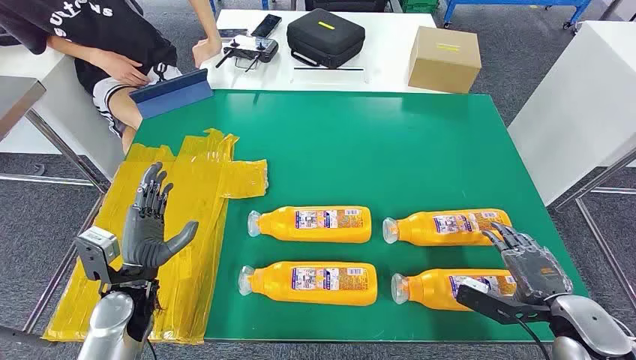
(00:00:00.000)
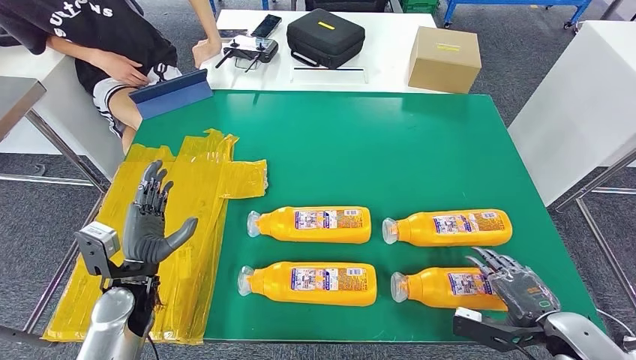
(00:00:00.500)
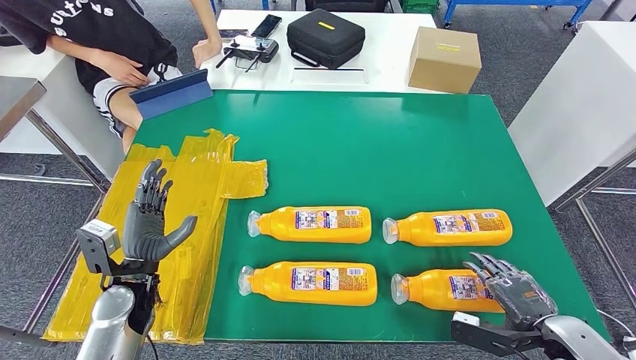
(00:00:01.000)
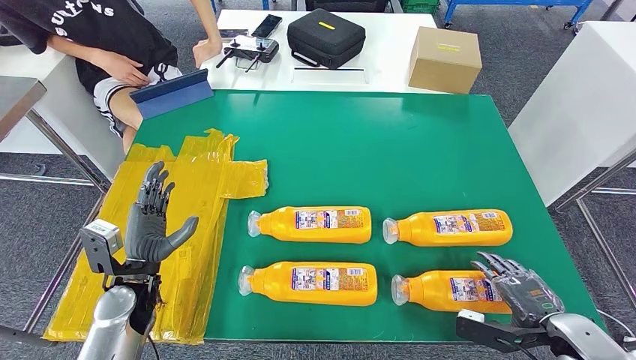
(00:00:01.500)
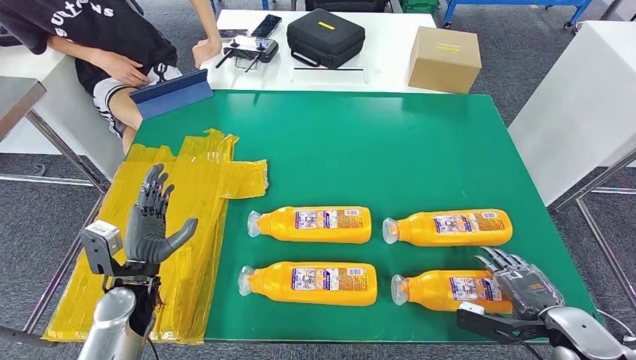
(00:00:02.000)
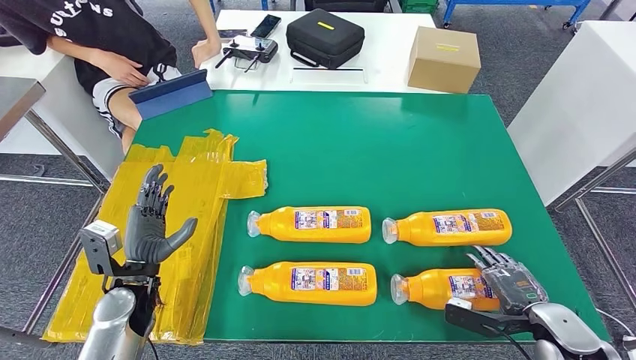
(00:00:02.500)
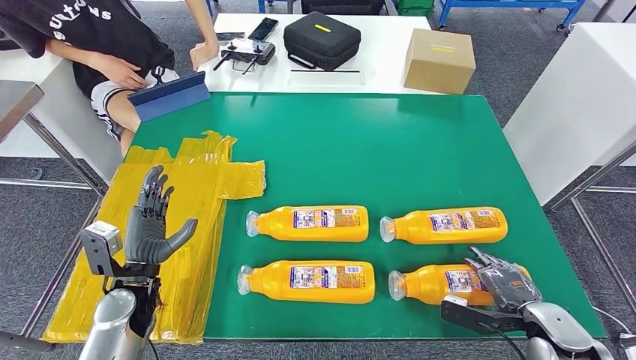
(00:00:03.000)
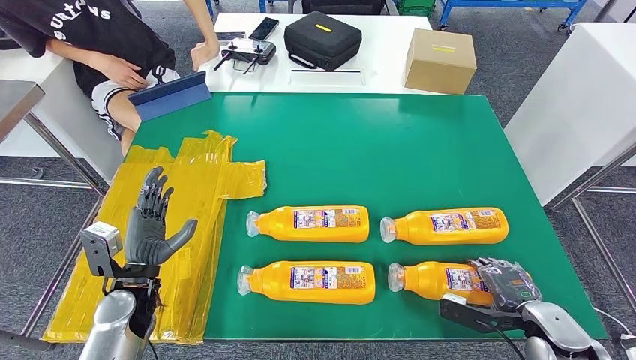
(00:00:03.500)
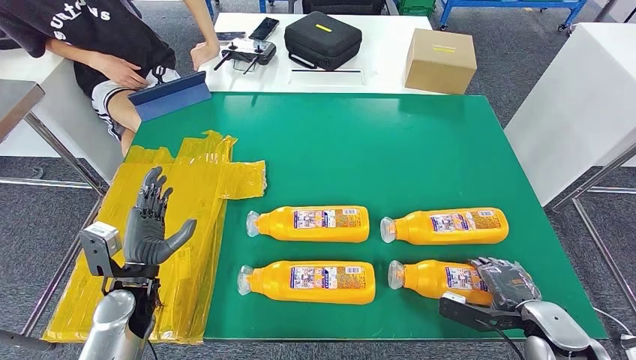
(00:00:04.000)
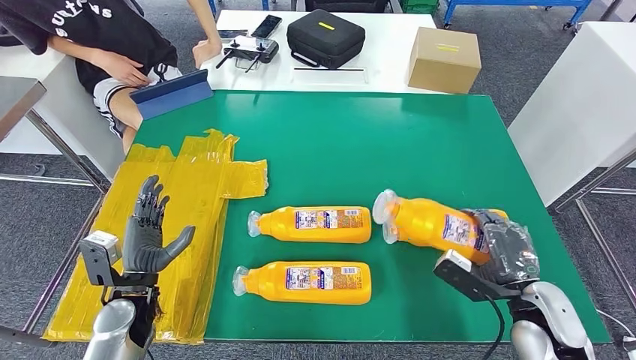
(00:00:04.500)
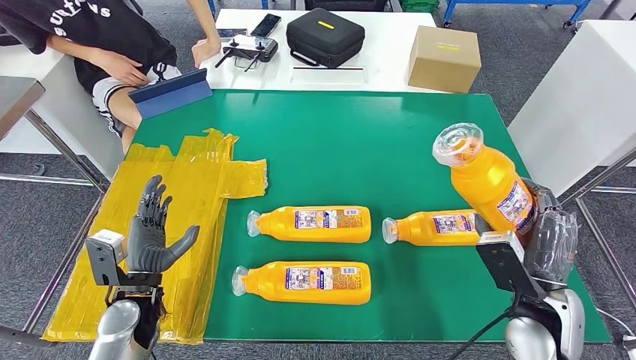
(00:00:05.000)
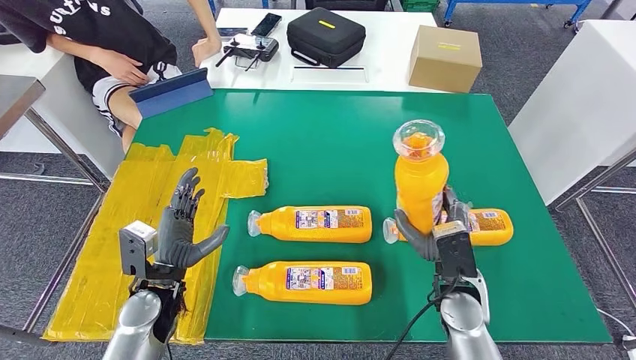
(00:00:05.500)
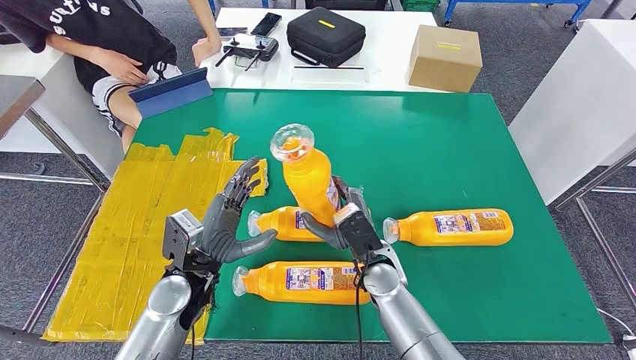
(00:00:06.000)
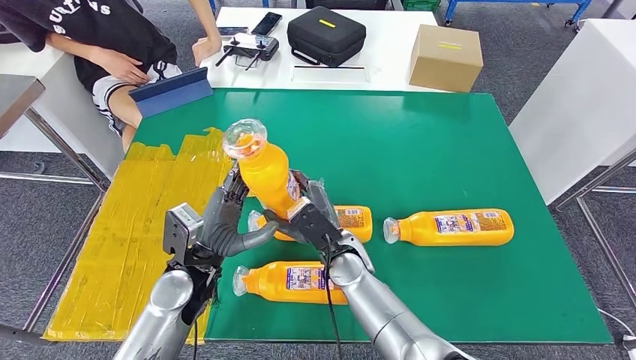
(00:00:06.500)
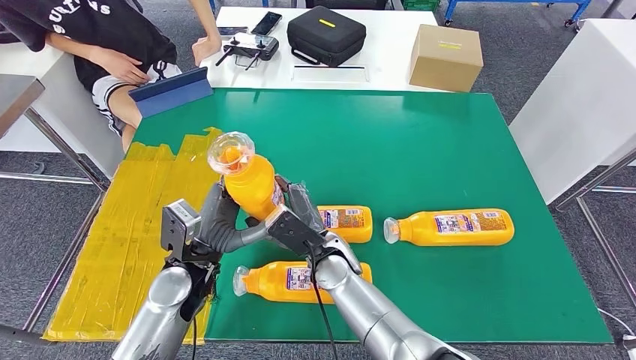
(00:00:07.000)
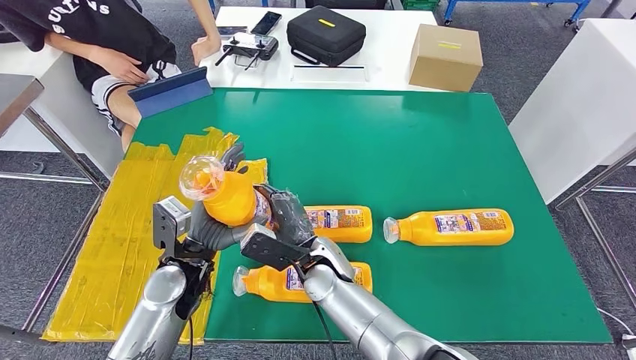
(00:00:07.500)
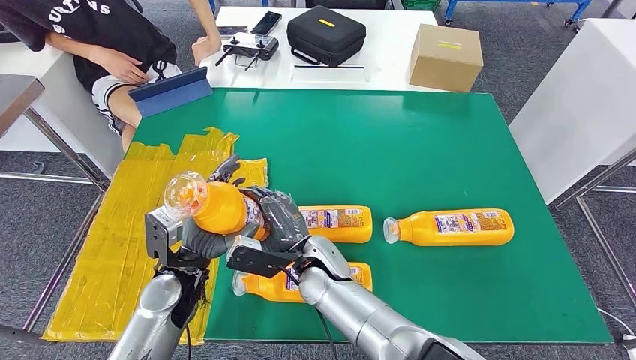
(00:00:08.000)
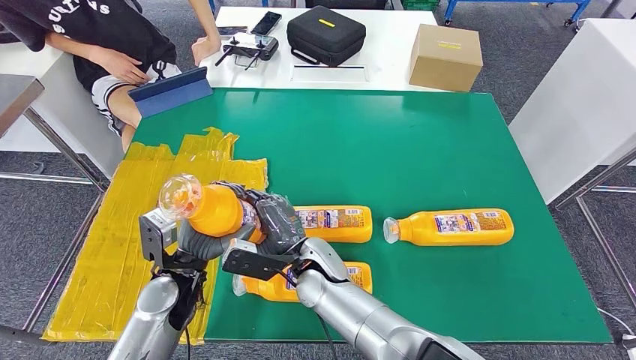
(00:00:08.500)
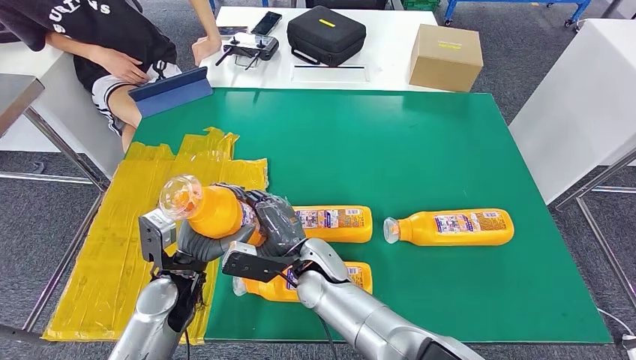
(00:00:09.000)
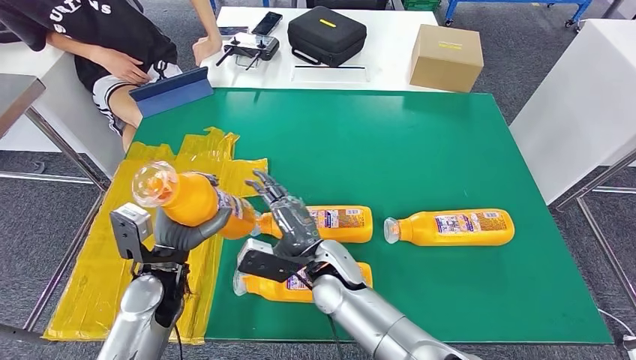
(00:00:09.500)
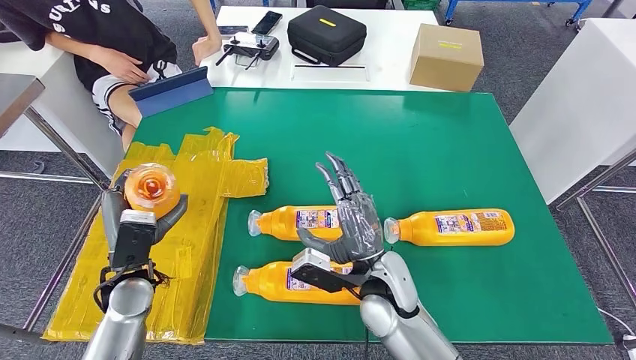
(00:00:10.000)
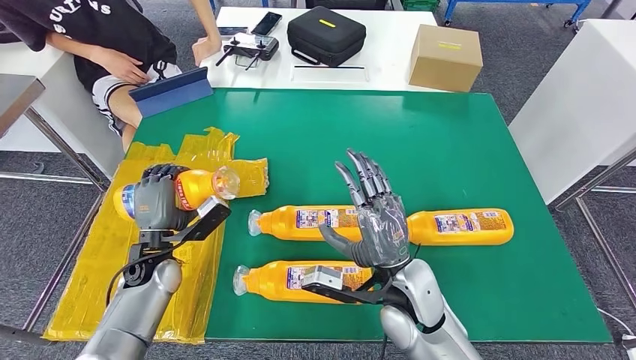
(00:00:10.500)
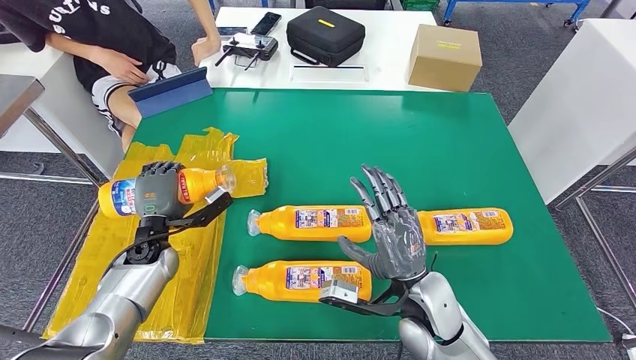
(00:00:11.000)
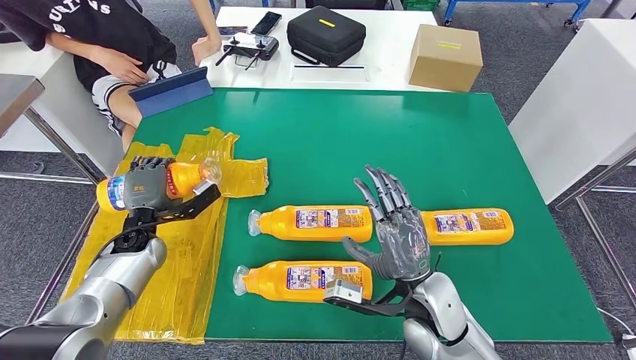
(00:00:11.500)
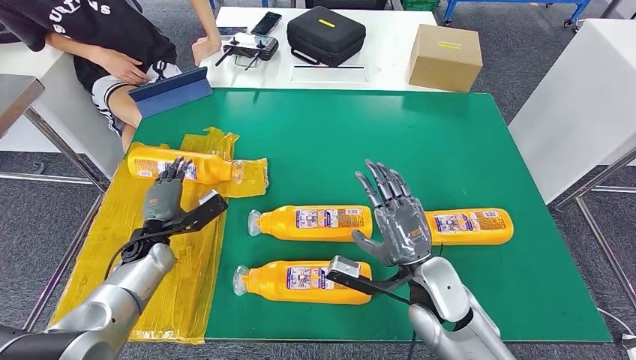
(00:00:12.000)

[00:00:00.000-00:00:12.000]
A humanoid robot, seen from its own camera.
Step, 00:00:00.000 to 00:00:06.000: Take the fast-moving consumer goods bottle from the table.
Step, 00:00:06.500 to 00:00:11.500: Flip the fast-moving consumer goods bottle to the front side.
00:00:02.000 to 00:00:04.000: The hands stay close to where they were, moving slightly.
00:00:06.000 to 00:00:08.000: The right hand moves to the left, about 10 cm.
00:00:08.000 to 00:00:10.000: The right hand heads to the right, covering about 5 cm. The left hand is displaced to the left by roughly 5 cm.
00:00:10.000 to 00:00:12.000: The left hand goes roughly 10 cm forward and downward. Meanwhile the right hand heads to the right, covering about 15 cm.

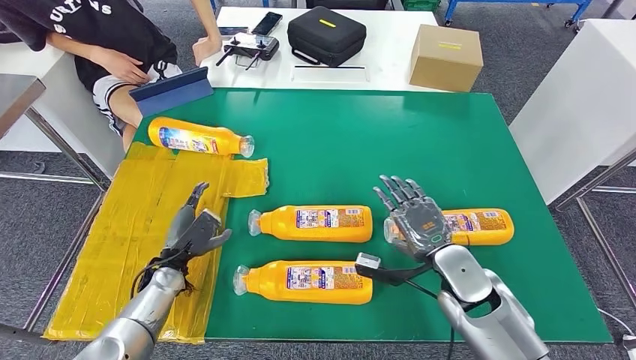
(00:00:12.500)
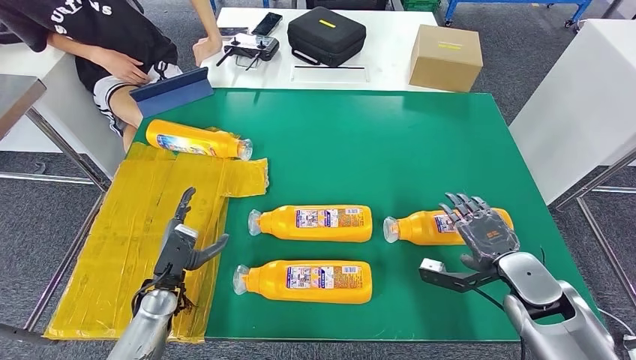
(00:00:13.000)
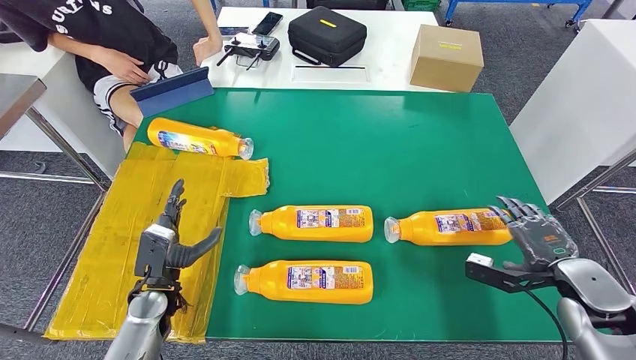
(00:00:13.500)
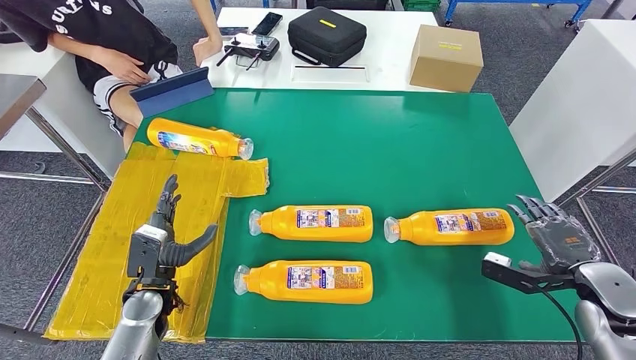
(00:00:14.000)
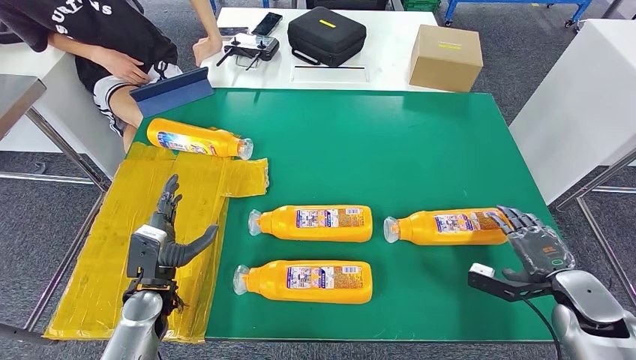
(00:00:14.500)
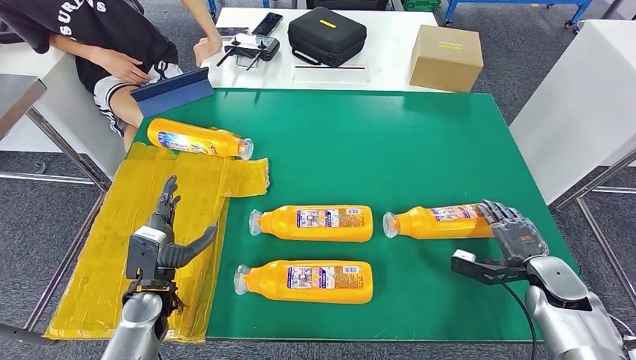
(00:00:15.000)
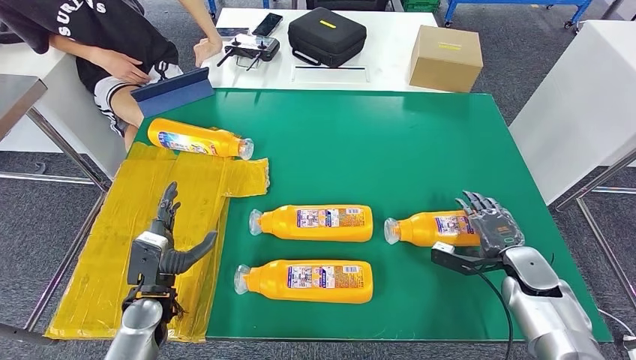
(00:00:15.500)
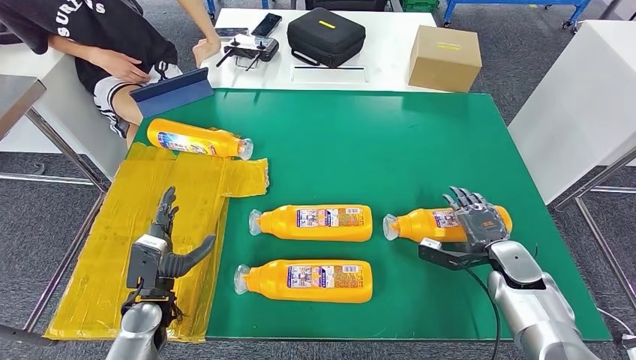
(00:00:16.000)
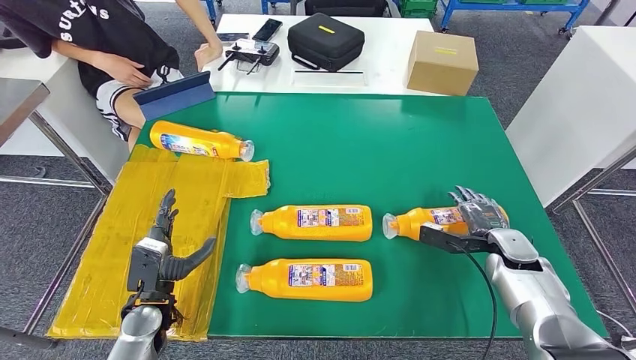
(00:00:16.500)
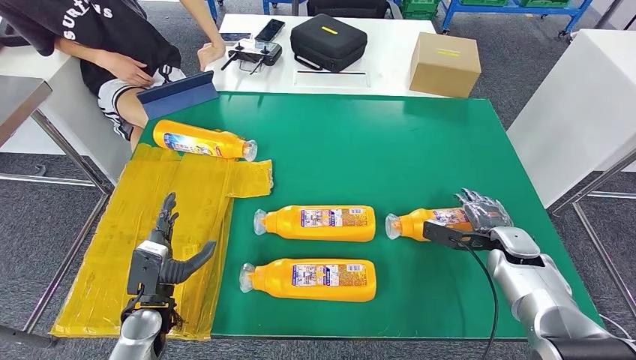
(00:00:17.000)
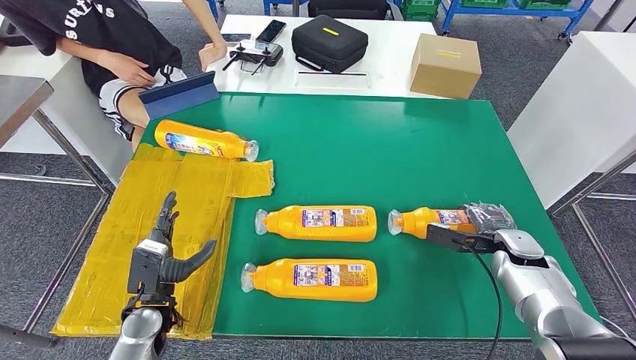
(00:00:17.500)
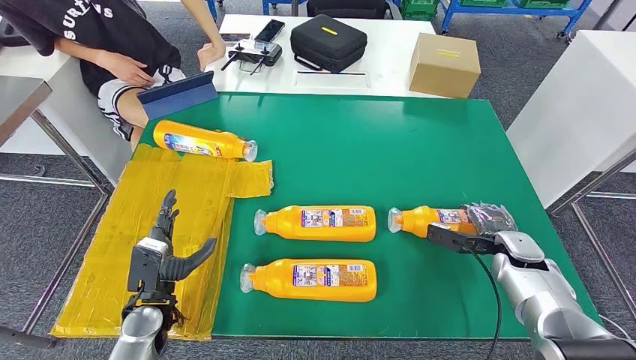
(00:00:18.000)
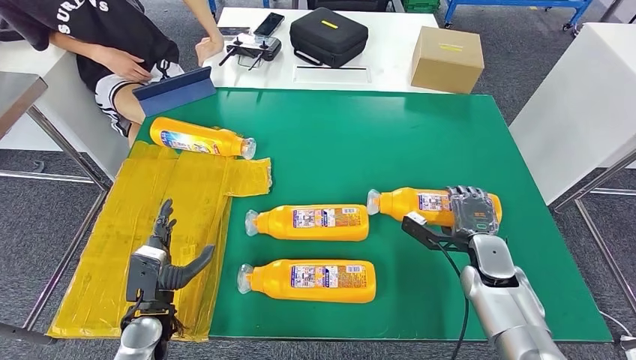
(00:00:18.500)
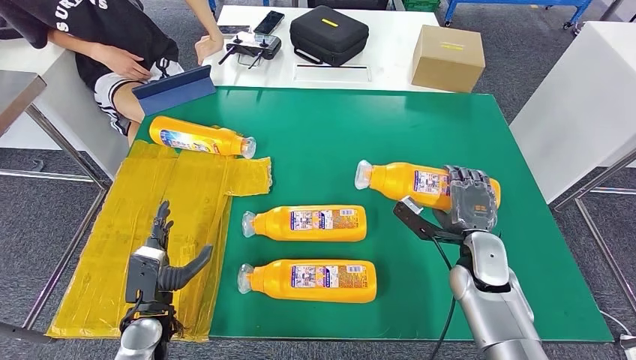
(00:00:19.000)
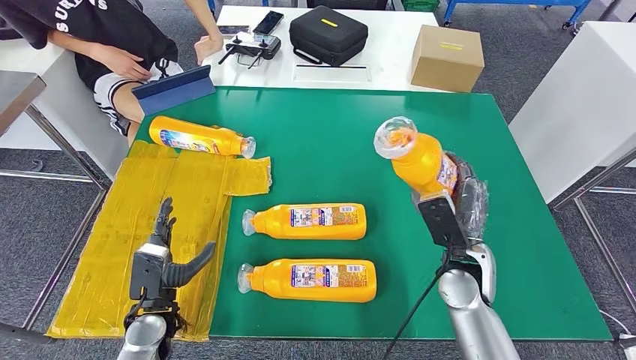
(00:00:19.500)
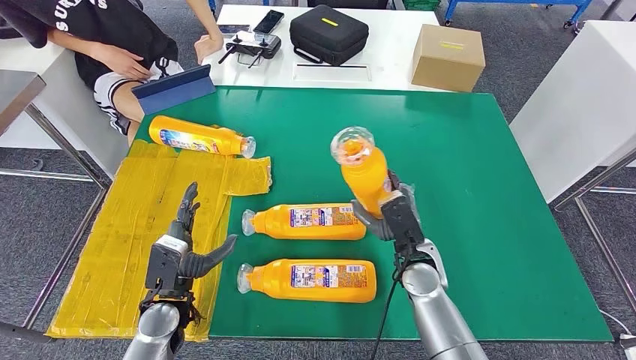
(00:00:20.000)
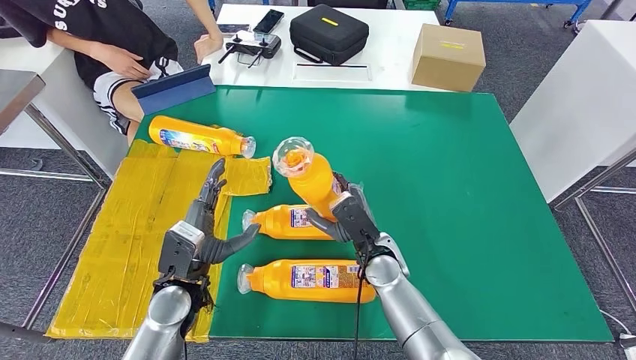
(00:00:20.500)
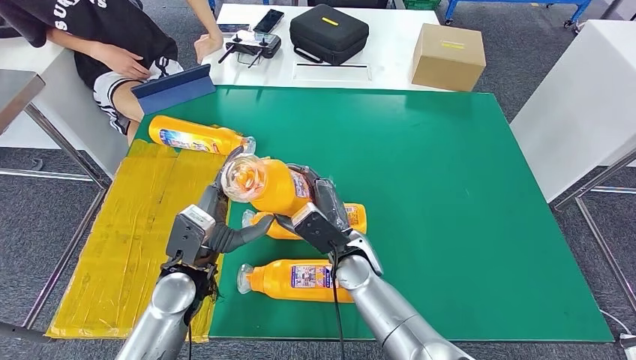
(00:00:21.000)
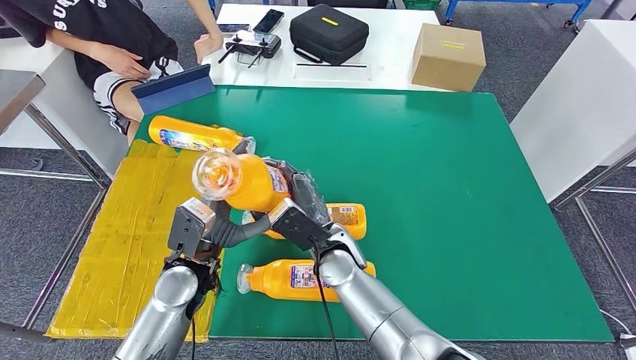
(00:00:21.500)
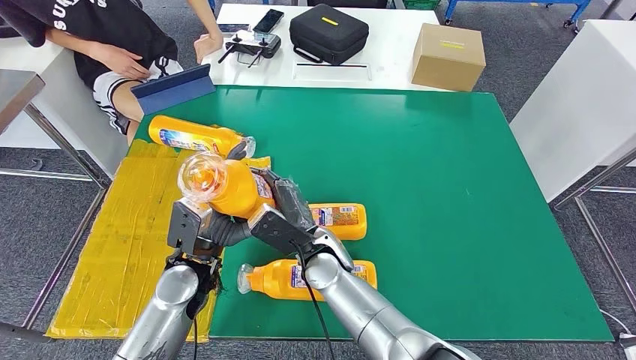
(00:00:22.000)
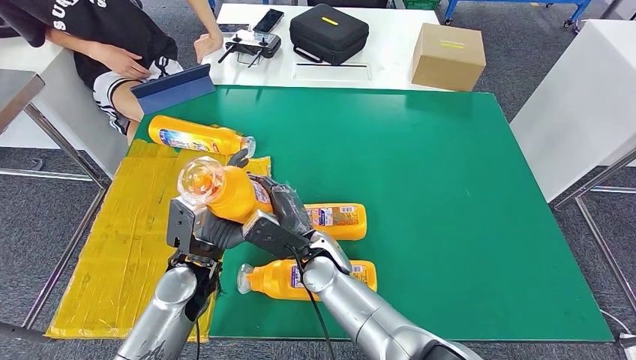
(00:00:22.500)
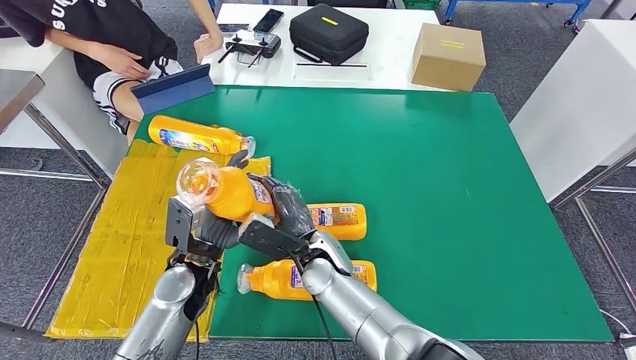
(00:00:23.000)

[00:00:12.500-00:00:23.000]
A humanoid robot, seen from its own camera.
Step, 00:00:13.500 to 00:00:19.500: Pick up the fast-moving consumer goods bottle from the table.
00:00:12.500 to 00:00:14.500: The right hand travels to the right by roughly 20 cm, while the left hand heads backward, covering about 5 cm.
00:00:21.000 to 00:00:23.000: The right hand heads to the left, covering roughly 5 cm.
